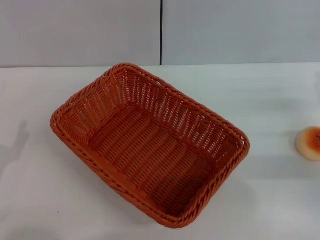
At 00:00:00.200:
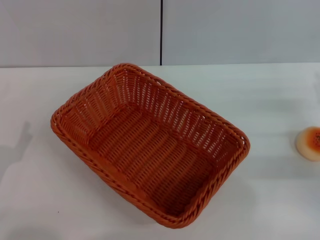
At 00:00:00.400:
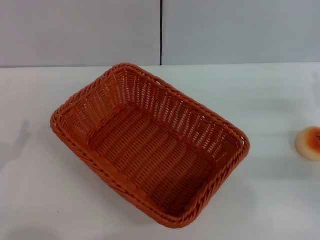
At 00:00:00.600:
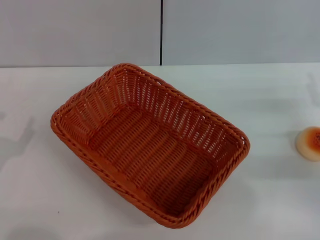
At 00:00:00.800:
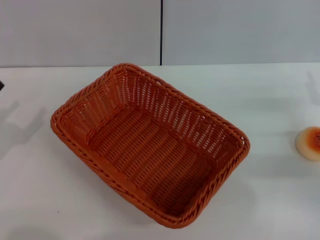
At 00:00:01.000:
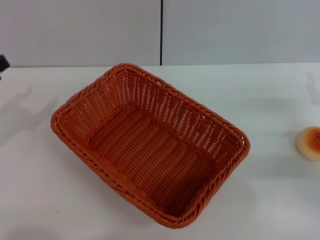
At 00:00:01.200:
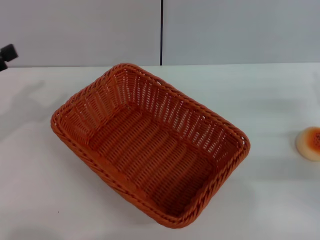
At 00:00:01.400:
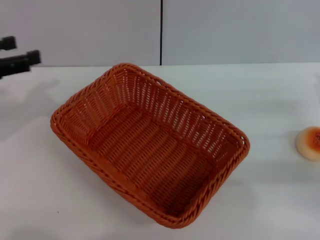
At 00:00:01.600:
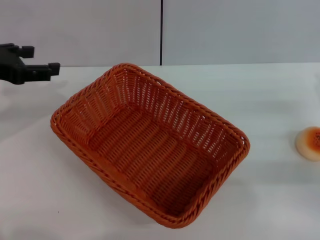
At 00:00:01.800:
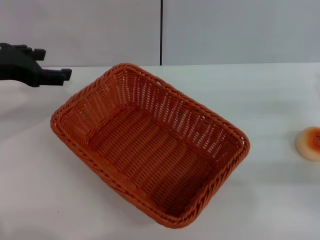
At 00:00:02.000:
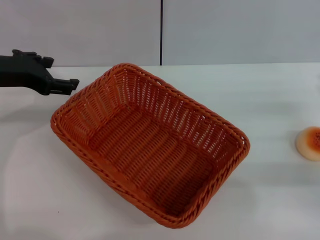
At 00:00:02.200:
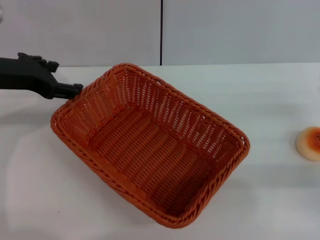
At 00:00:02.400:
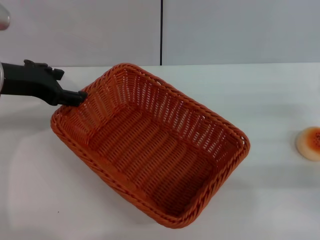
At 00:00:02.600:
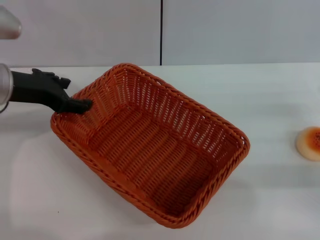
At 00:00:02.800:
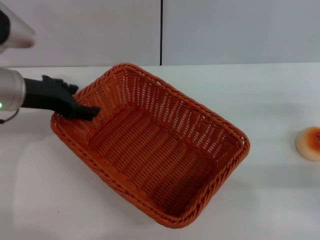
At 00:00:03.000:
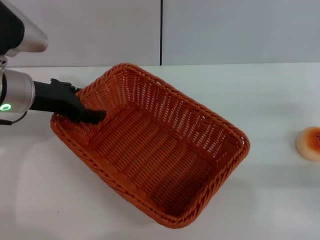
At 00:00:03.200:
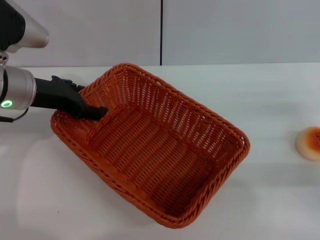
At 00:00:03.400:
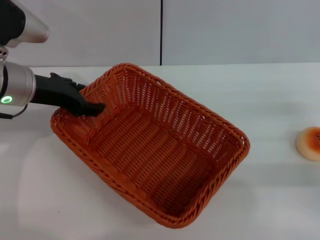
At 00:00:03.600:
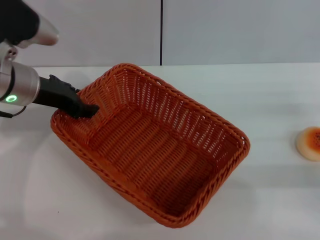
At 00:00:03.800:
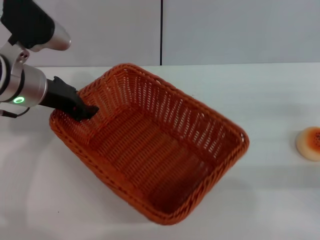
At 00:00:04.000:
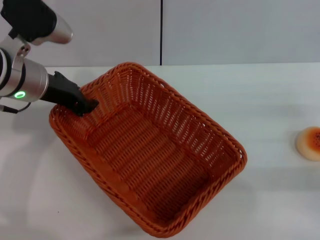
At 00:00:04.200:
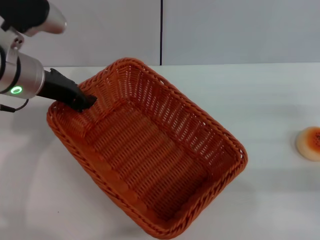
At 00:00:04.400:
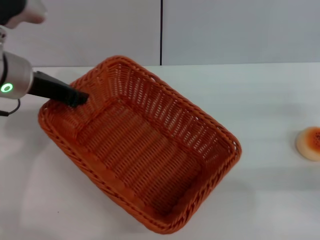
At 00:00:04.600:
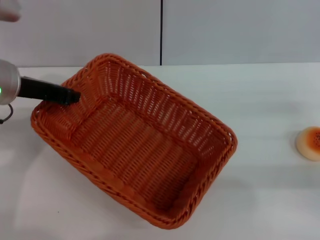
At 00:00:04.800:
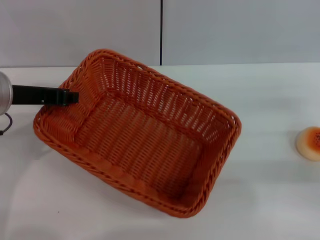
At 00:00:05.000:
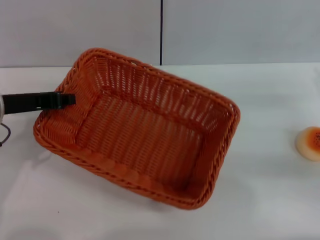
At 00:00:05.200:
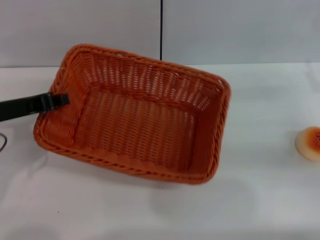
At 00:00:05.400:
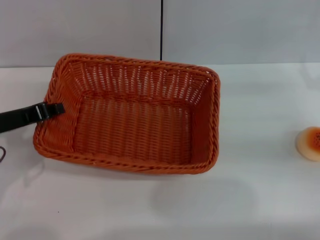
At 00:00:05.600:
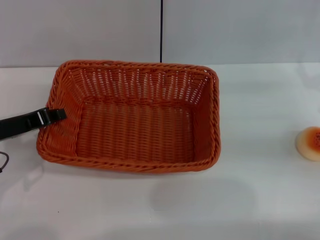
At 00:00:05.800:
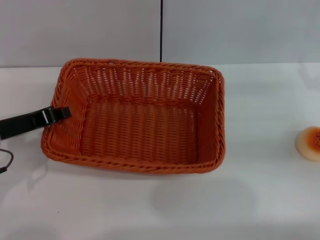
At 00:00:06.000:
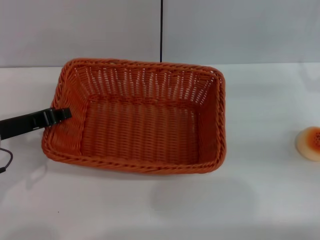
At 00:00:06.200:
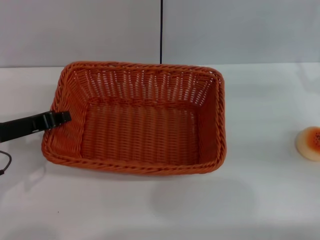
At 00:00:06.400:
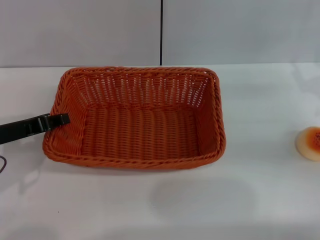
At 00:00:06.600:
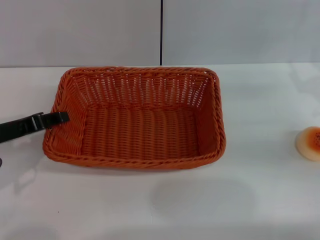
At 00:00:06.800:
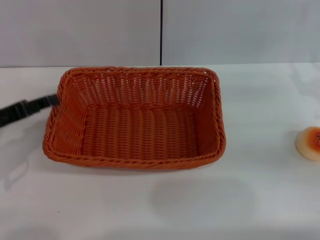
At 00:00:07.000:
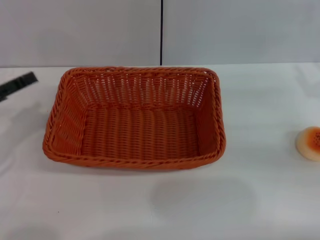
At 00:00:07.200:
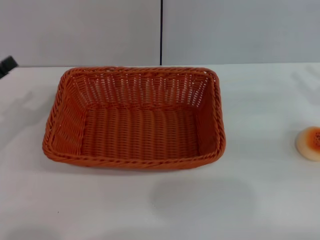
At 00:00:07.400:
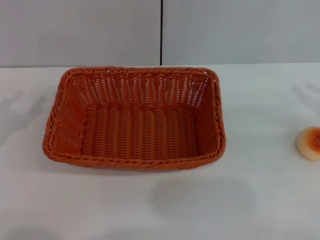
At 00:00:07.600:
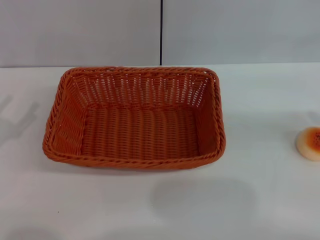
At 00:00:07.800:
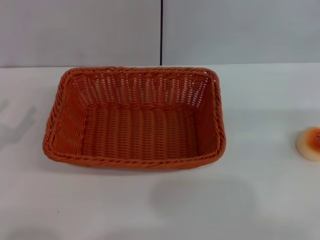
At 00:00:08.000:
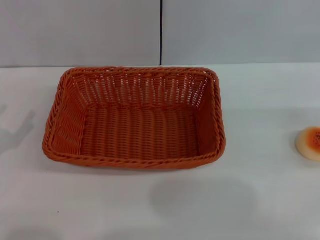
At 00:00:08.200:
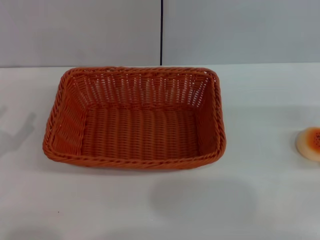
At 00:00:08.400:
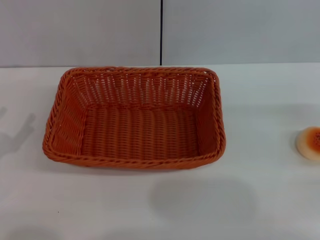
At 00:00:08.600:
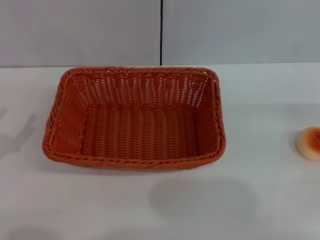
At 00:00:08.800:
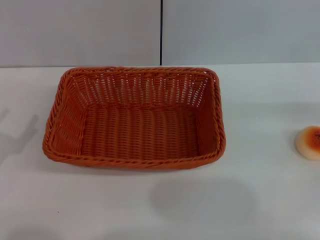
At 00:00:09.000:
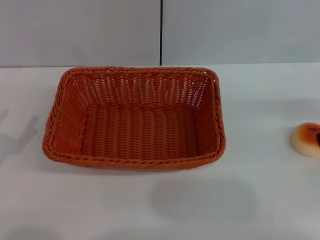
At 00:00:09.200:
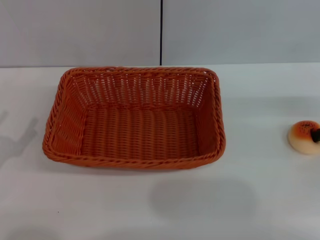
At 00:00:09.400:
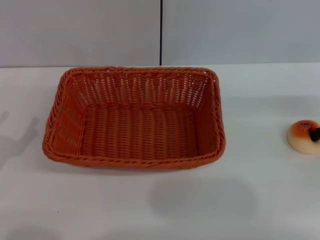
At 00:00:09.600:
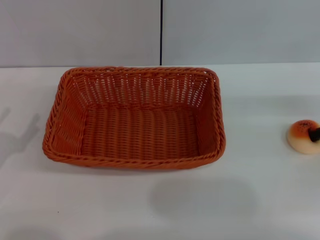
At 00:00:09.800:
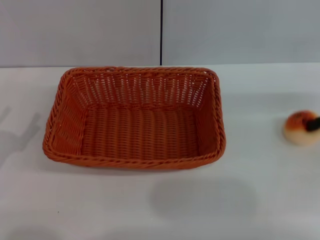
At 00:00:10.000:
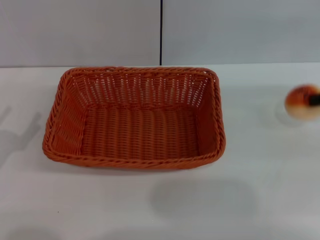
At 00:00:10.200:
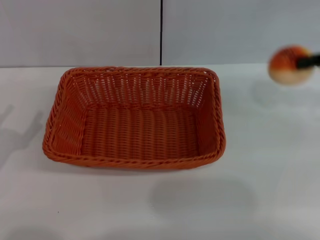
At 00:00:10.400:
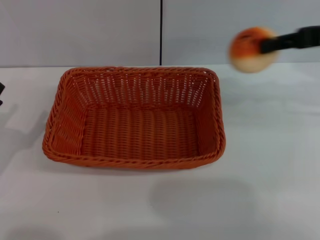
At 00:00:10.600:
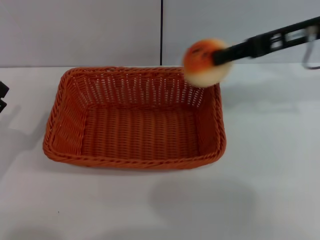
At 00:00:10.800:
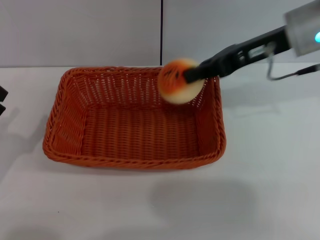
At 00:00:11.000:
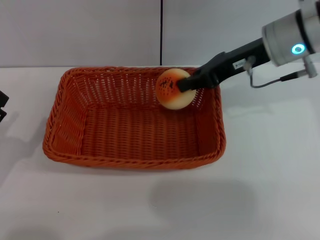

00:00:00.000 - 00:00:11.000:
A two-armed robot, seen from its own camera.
Step, 00:00:00.000 - 00:00:06.600: Move the basket to the center of view with the left gripper.
Step, 00:00:07.000 - 00:00:09.800: Pick up the egg yolk pastry with the right gripper.
00:00:00.000 - 00:00:01.600: The left gripper travels upward and forward by roughly 20 cm.
00:00:01.600 - 00:00:03.200: The left gripper is displaced to the right by approximately 10 cm.
00:00:03.200 - 00:00:04.800: The left gripper closes its fingers.
00:00:04.800 - 00:00:06.200: The left gripper moves some 5 cm.
00:00:06.200 - 00:00:07.800: The right gripper heads upward and to the right, covering roughly 10 cm. Meanwhile the left gripper moves to the left, backward and downward, some 15 cm, and opens.
00:00:07.800 - 00:00:09.400: The right gripper is displaced downward and forward by some 10 cm.
00:00:09.400 - 00:00:11.000: The right gripper shifts about 20 cm to the left, and closes its fingers.

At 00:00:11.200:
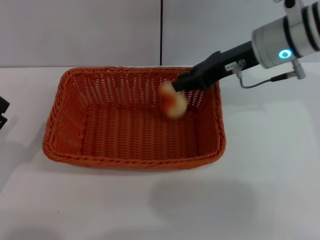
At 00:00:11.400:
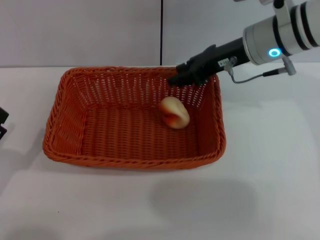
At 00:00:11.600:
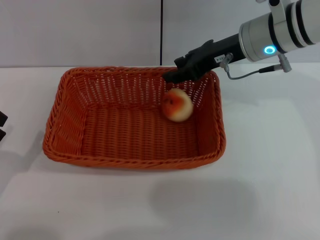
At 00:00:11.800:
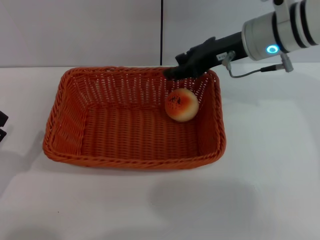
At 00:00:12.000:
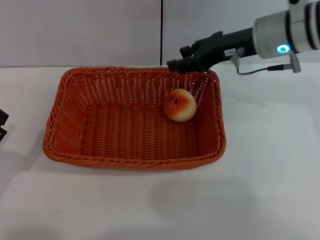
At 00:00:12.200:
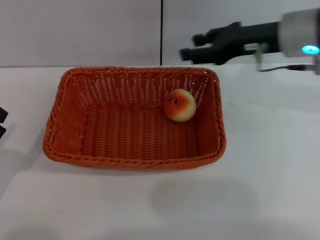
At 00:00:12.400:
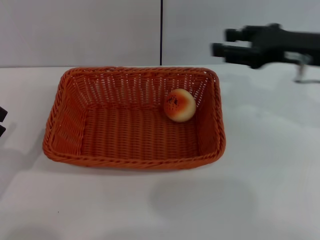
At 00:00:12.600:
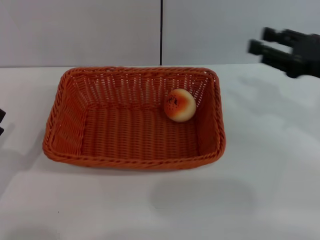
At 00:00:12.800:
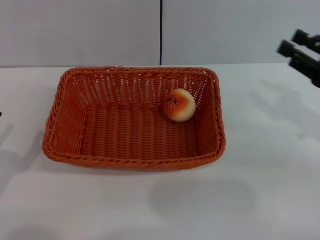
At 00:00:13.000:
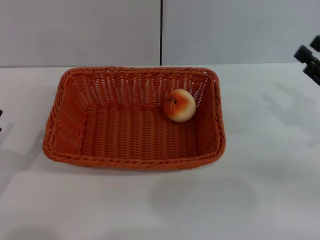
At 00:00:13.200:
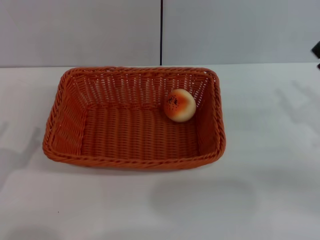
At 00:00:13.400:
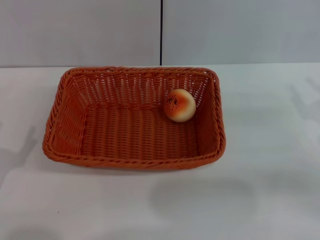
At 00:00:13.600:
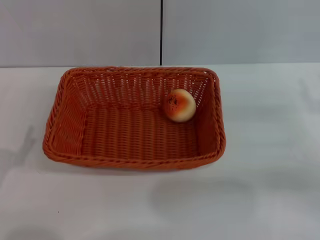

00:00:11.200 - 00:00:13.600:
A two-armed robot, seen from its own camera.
00:00:11.200 - 00:00:12.400: The right gripper goes some 10 cm to the right and backward, and opens.
00:00:12.400 - 00:00:13.600: The right gripper goes about 15 cm downward, to the right and backward.
